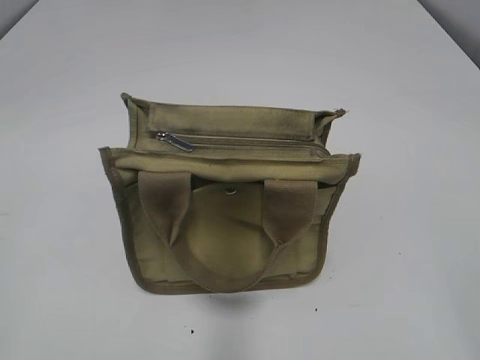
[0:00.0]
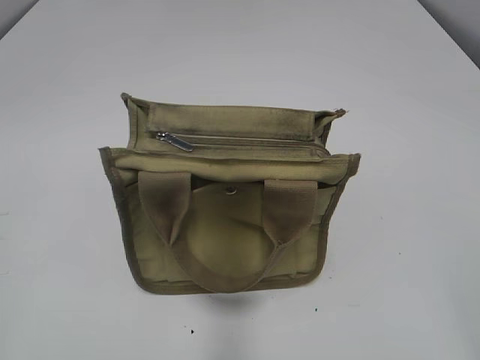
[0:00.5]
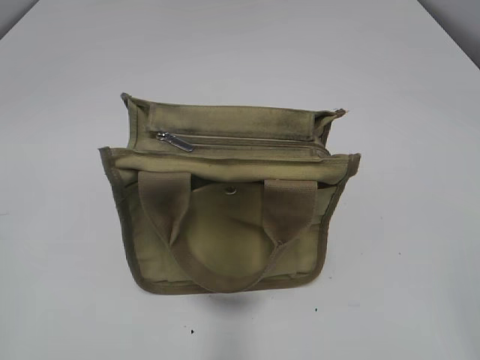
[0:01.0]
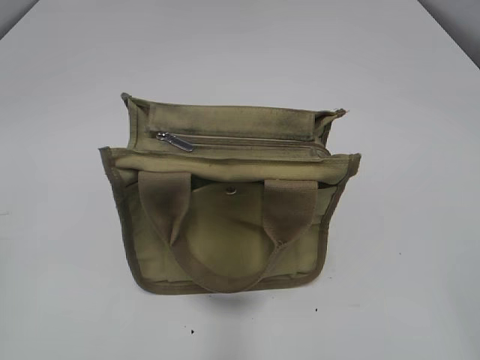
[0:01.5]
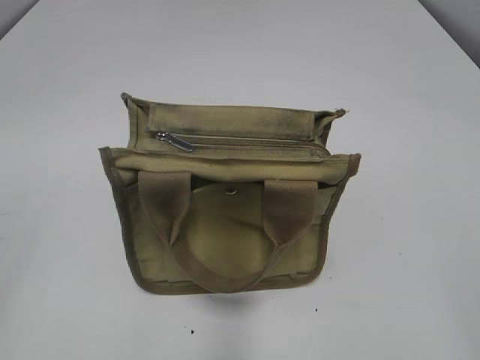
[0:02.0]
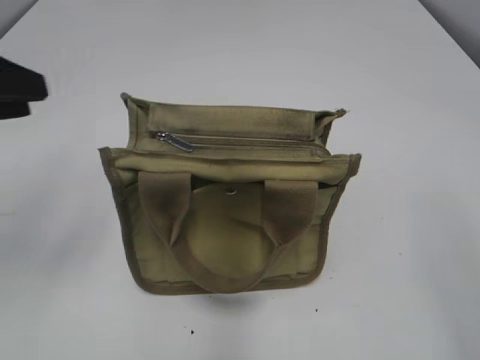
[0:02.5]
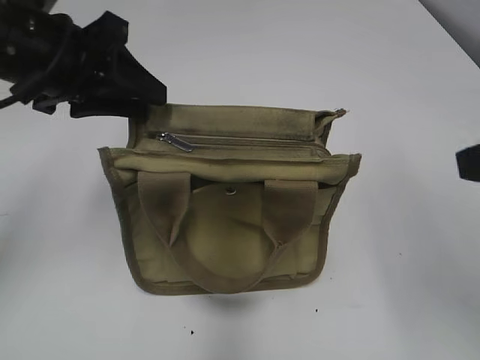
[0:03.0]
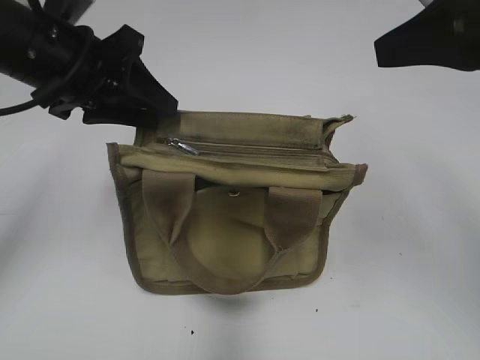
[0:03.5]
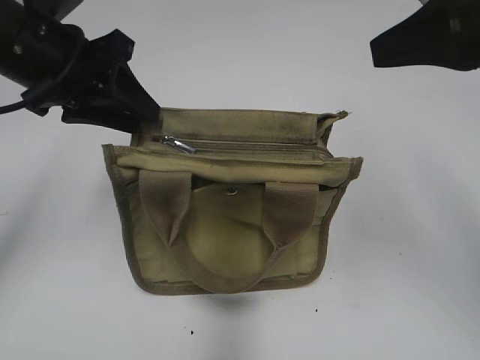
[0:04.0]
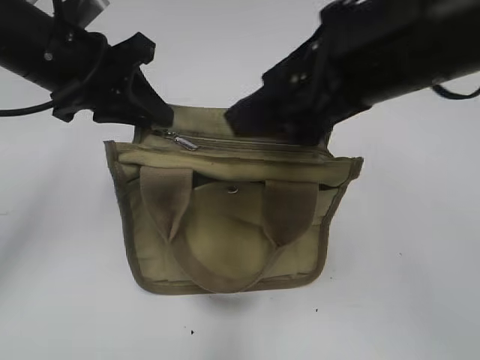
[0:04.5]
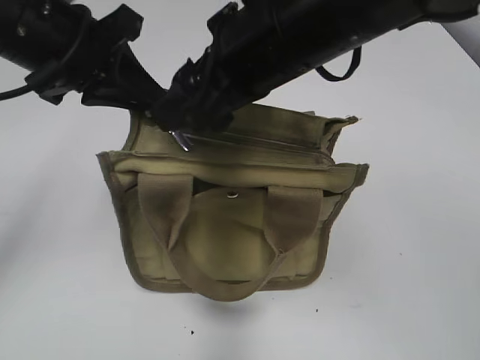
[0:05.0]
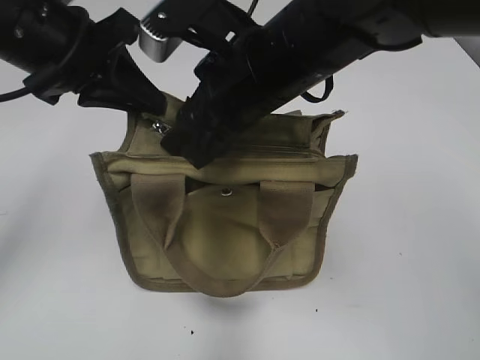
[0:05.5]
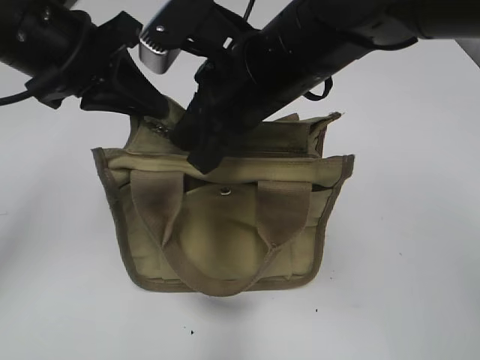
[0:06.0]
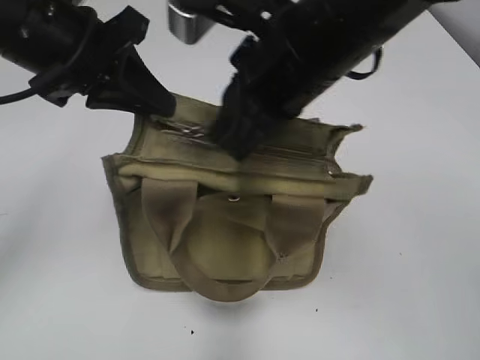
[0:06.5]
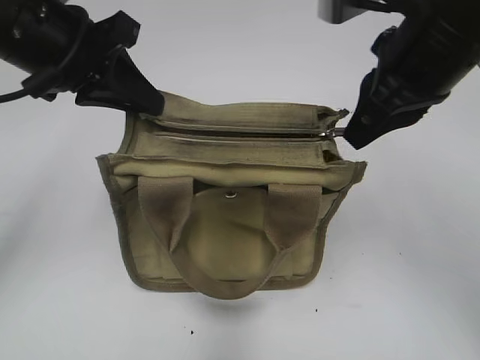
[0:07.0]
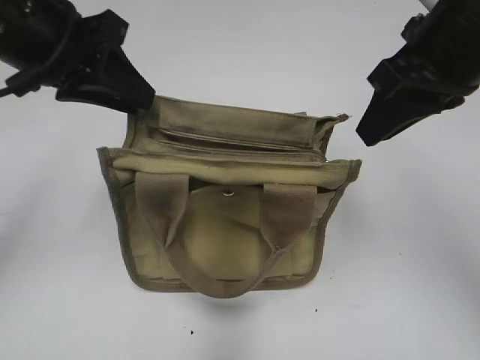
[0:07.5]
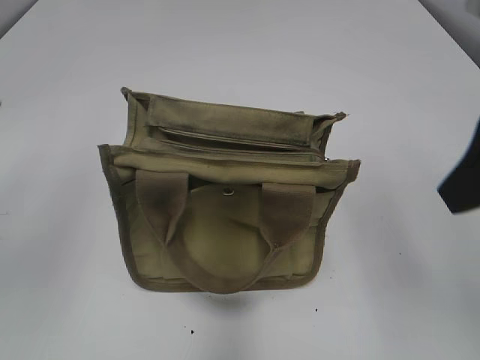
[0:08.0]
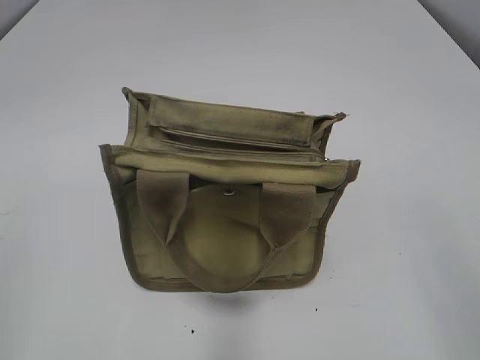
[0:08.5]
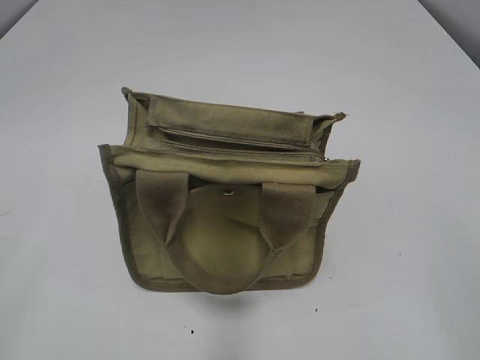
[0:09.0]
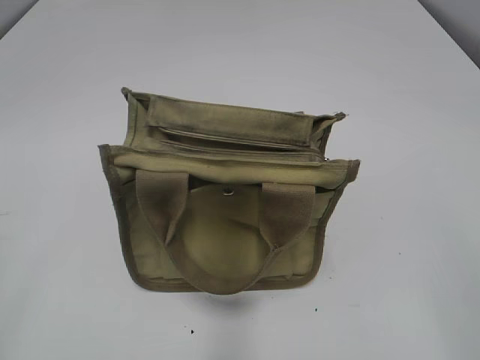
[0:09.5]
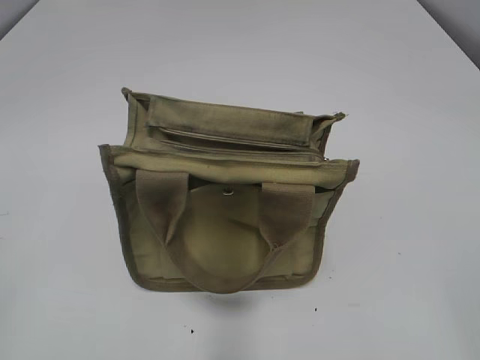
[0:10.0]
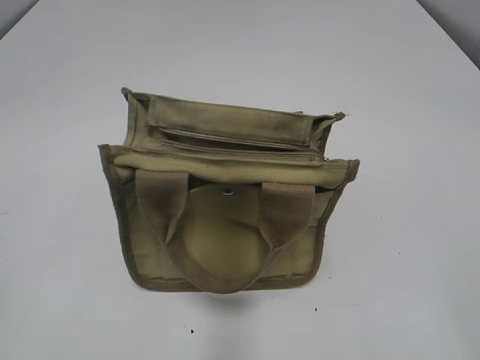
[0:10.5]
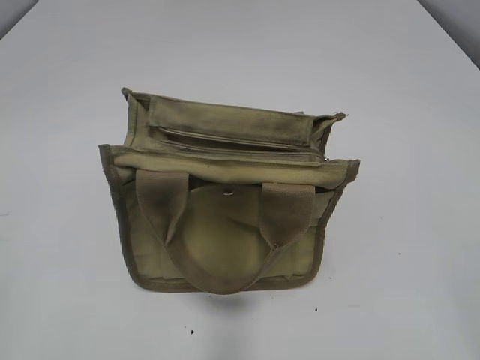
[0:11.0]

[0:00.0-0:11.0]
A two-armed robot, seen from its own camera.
Step, 0.0 to 7.0 s: Pull open the zipper with your right hand.
2.0 to 3.5 s: The right gripper shifts some 25 cm forward; the left gripper heads forward and to the right, covering about 30 cm.
3.5 to 5.5 s: The right gripper goes about 20 cm to the left and downward; the left gripper closes.
5.5 to 7.5 s: The right gripper goes some 15 cm to the right, and closes up.
7.5 to 9.0 s: The right gripper goes some 25 cm backward, and opens, while the left gripper goes approximately 35 cm backward and to the left, and opens its fingers.

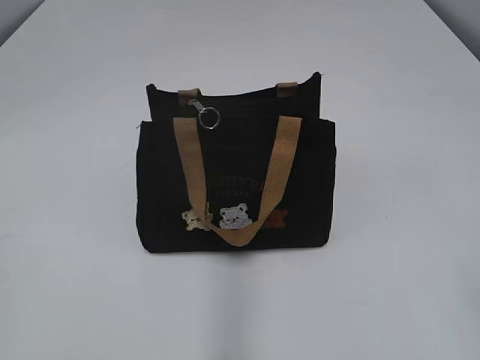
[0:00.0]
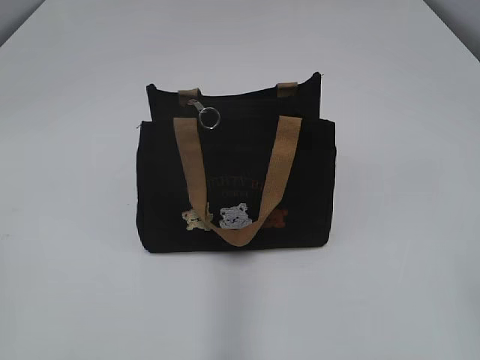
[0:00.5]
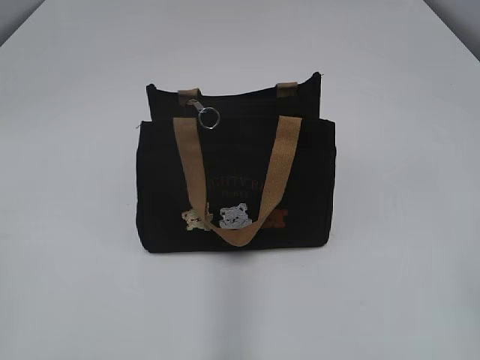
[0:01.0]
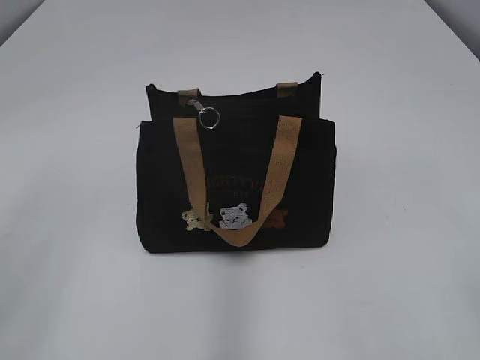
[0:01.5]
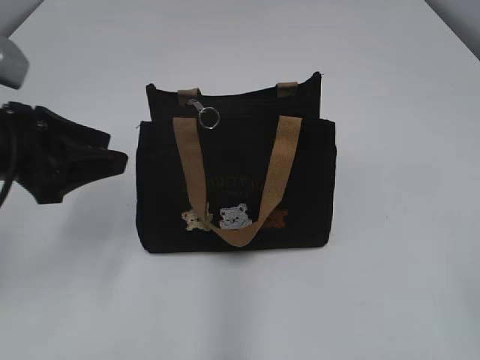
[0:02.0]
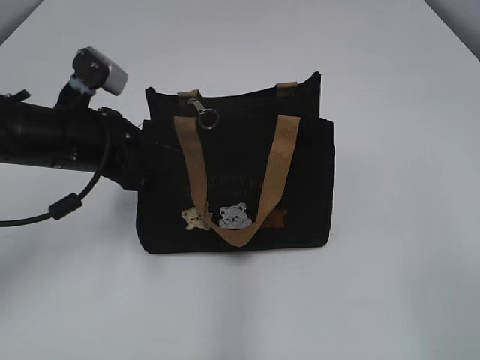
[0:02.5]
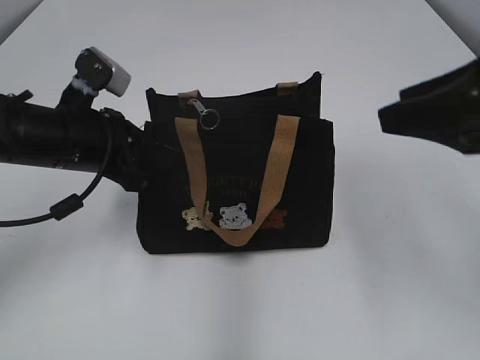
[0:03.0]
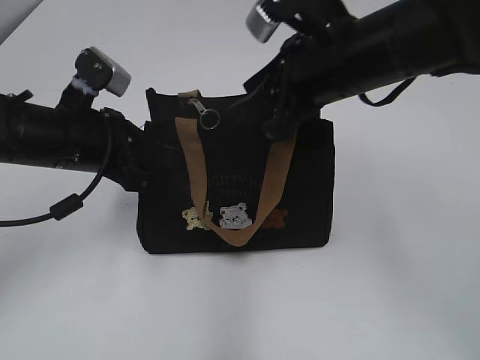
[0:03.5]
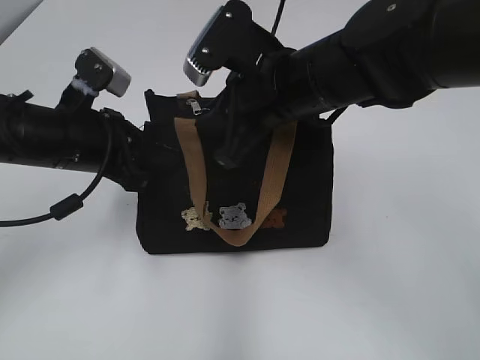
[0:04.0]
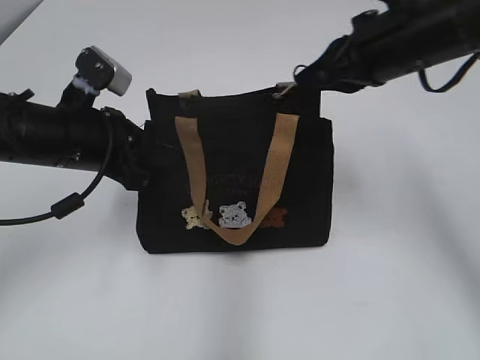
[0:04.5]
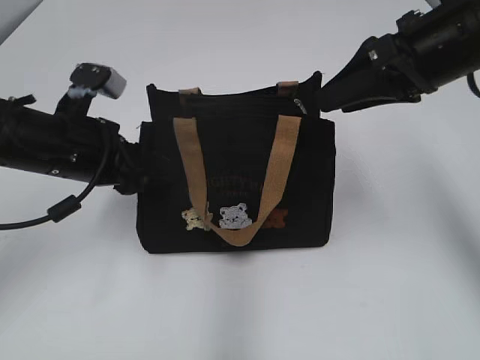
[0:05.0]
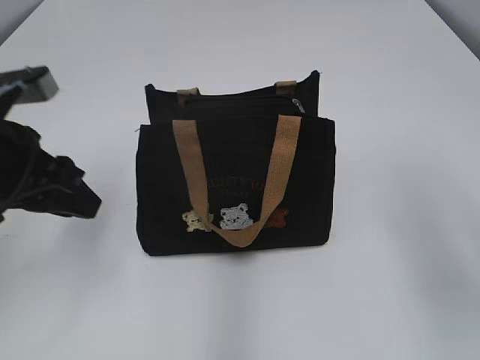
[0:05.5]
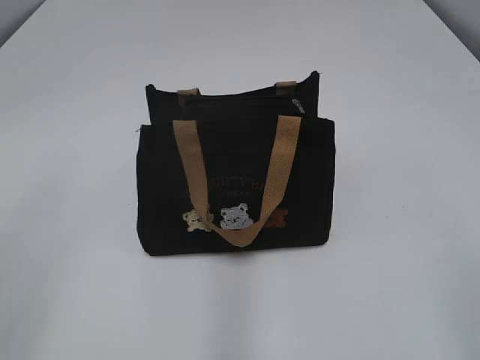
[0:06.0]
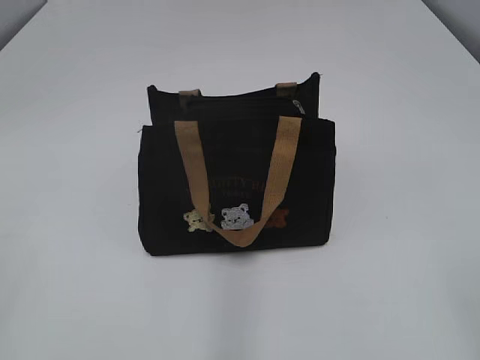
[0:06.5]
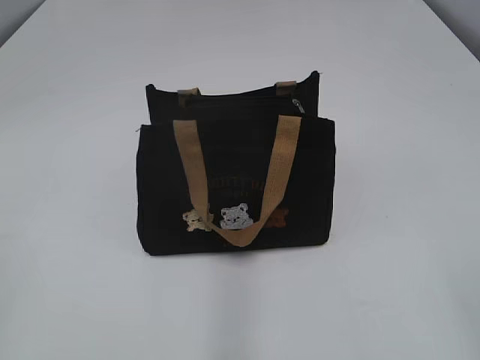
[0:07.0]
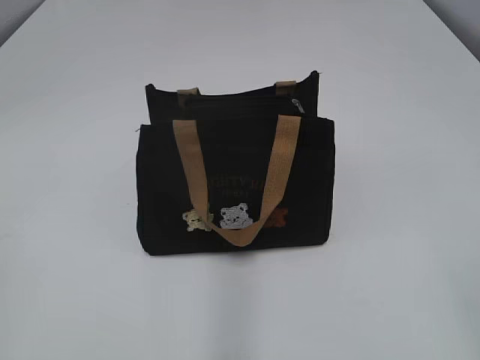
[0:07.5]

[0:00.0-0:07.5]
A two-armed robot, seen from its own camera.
Step, 0.0 to 5.0 s: Pull open the zipper with your right hand.
2.0 to 4.0 s: The left gripper shifts roughly 10 cm forward, to the right and downward, and closes up; the right gripper goes roughly 40 cm forward and to the left.
4.0 to 5.5 s: The right gripper travels to the right, backward and upward by about 20 cm, and closes, then reopens. Meanwhile the left gripper opens up.
5.5 to 7.5 s: The left gripper heads backward and to the left, covering about 30 cm.

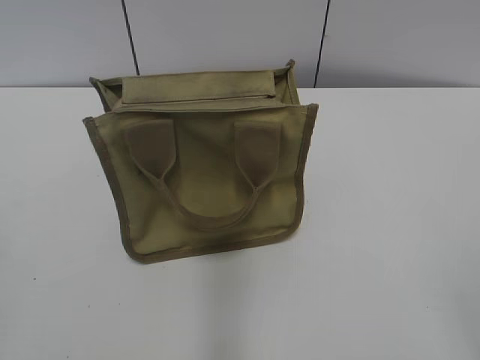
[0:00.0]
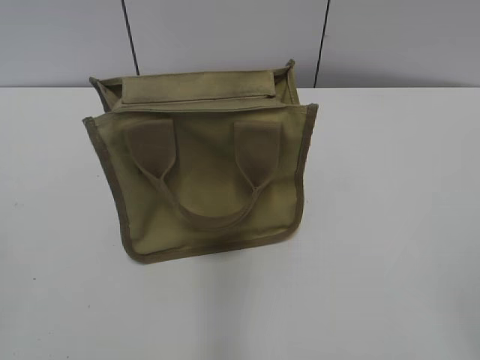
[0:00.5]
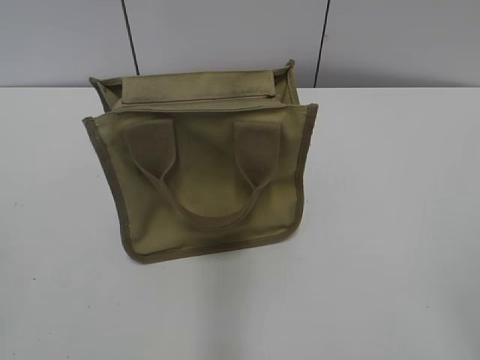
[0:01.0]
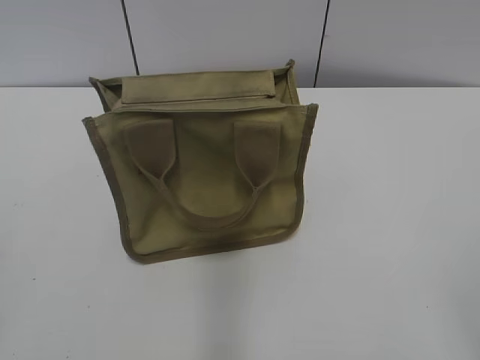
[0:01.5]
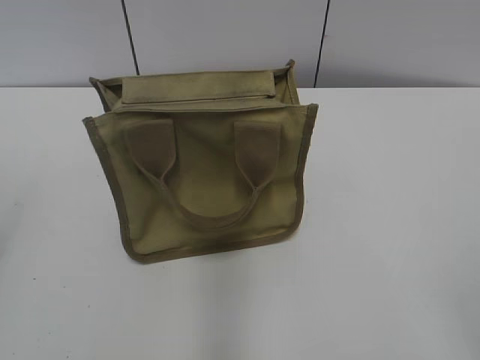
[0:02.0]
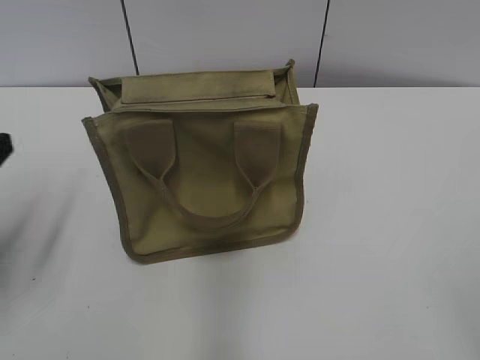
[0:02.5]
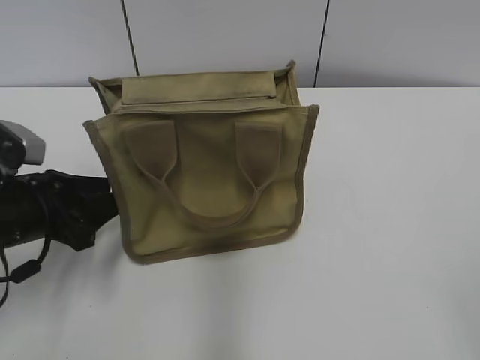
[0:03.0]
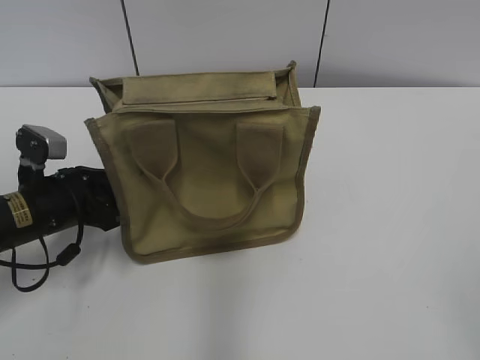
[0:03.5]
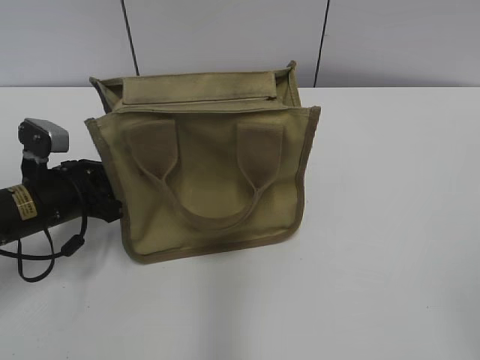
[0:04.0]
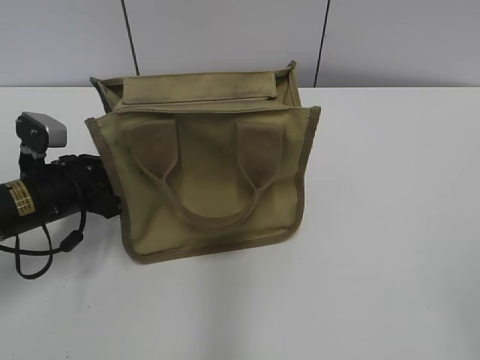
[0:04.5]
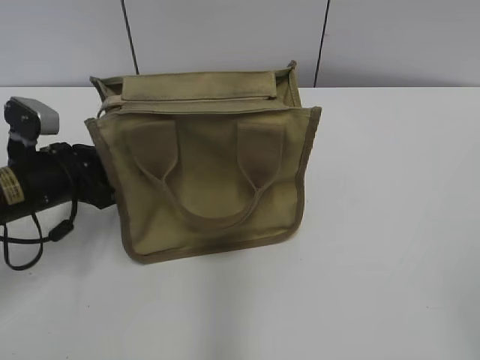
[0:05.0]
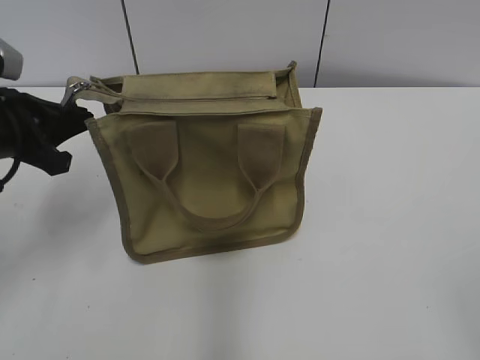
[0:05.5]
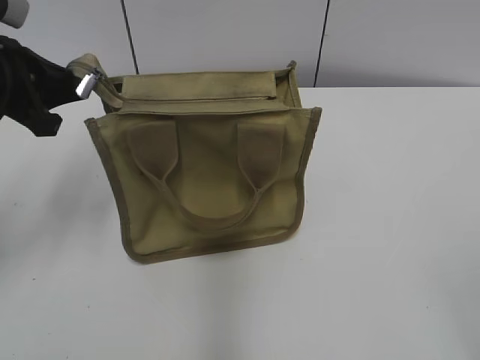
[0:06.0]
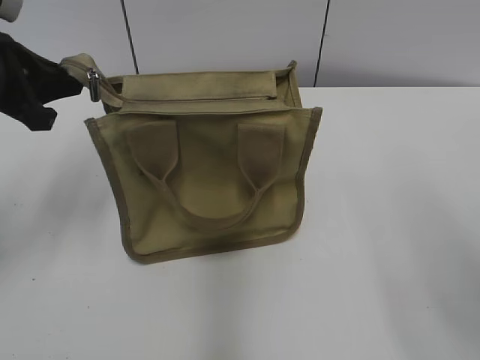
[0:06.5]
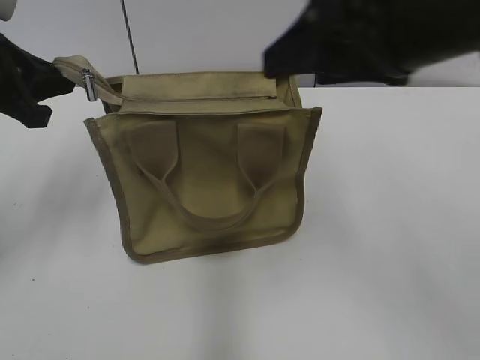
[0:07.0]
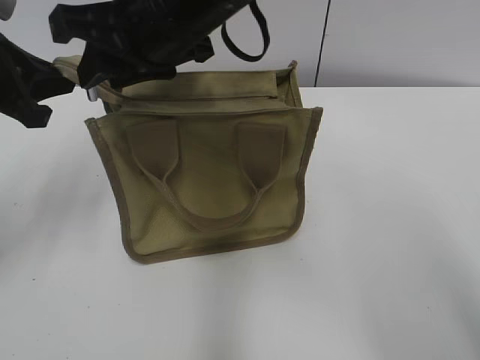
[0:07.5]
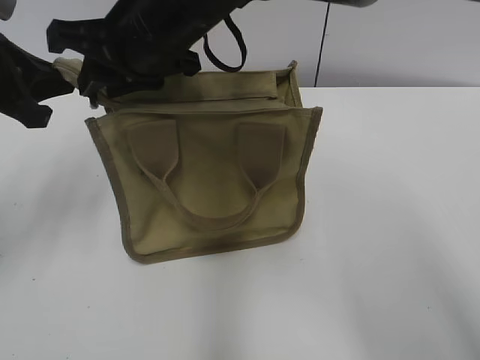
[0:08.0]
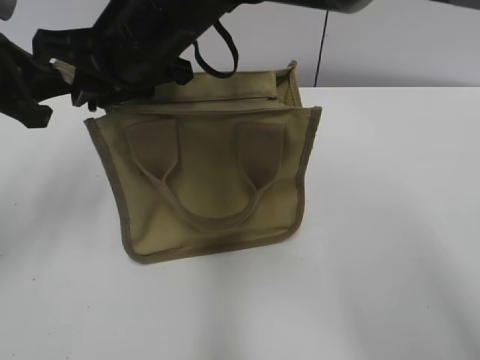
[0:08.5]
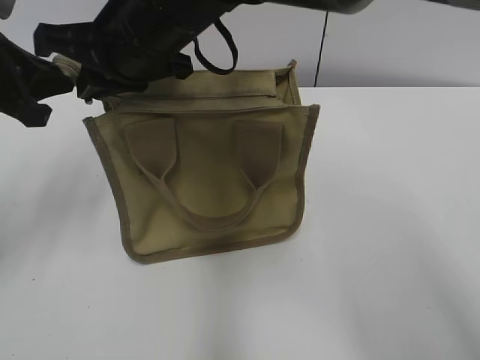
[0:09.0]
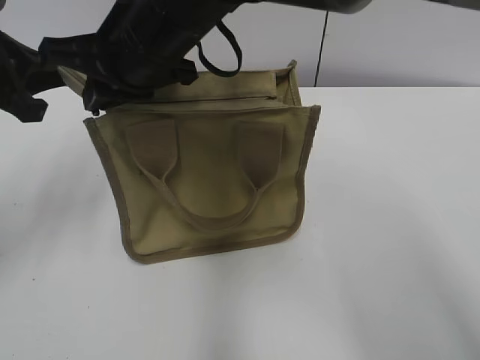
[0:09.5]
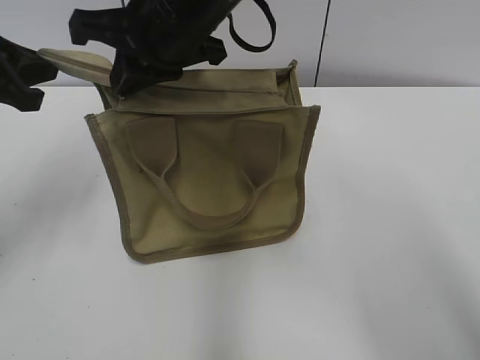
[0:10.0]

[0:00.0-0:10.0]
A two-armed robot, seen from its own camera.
2.0 to 4.0 s: The left gripper heads downward, forward and to the right, covering about 30 cm.
4.0 to 6.0 s: The left gripper goes roughly 15 cm upward, and closes up.
6.0 to 8.0 s: The right gripper travels forward and to the left by roughly 50 cm, and closes its fingers.
8.0 to 10.0 s: There are only small adjustments of the grippers.
